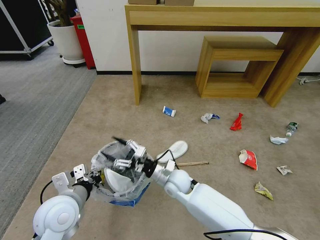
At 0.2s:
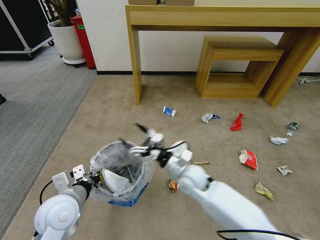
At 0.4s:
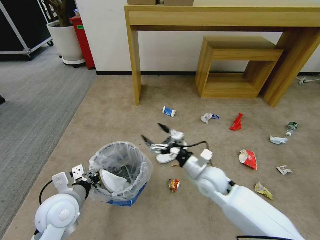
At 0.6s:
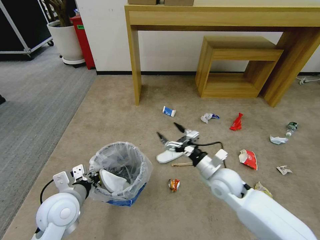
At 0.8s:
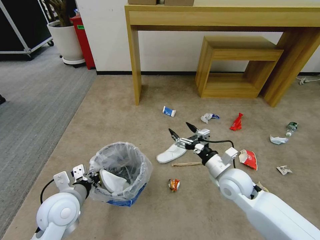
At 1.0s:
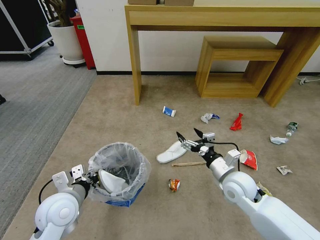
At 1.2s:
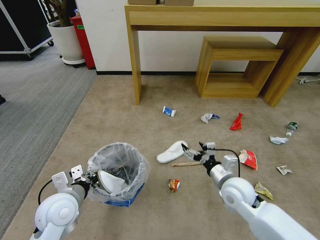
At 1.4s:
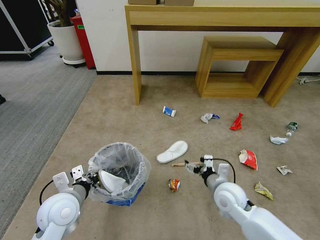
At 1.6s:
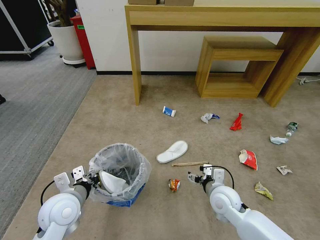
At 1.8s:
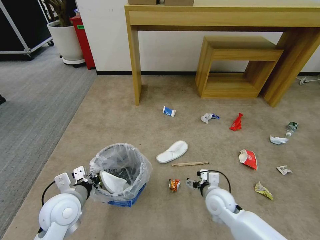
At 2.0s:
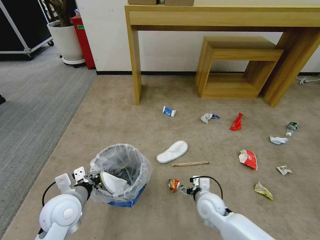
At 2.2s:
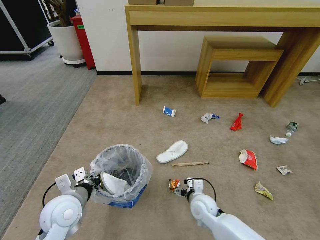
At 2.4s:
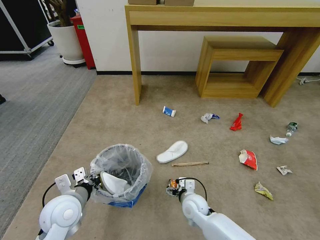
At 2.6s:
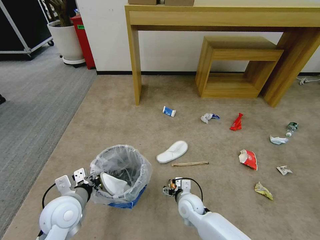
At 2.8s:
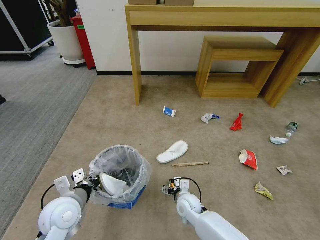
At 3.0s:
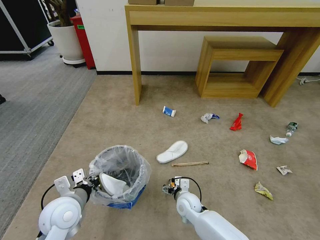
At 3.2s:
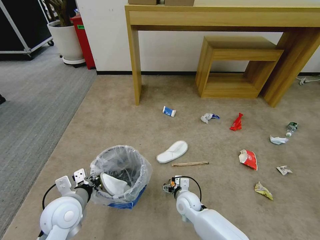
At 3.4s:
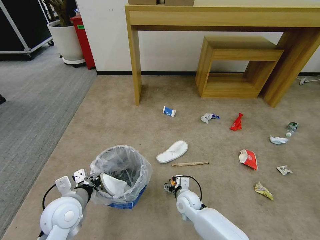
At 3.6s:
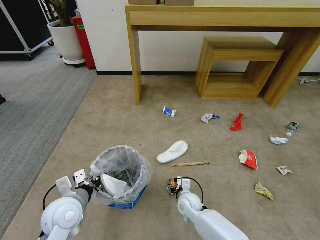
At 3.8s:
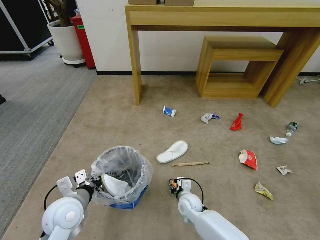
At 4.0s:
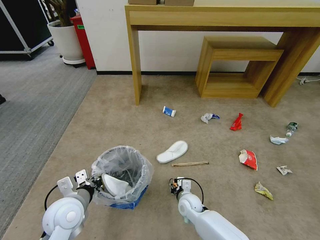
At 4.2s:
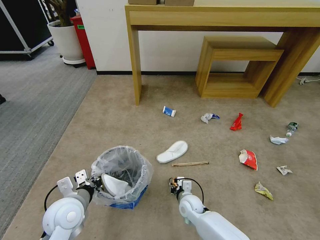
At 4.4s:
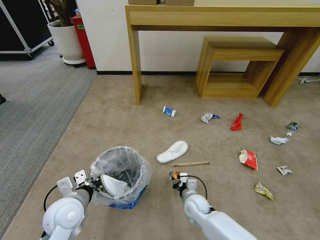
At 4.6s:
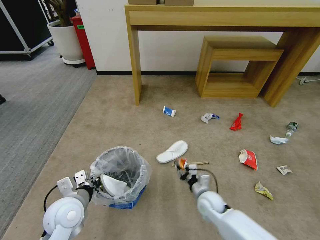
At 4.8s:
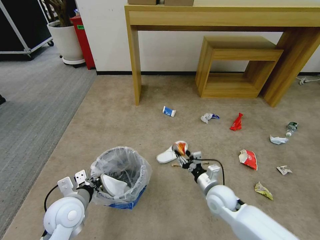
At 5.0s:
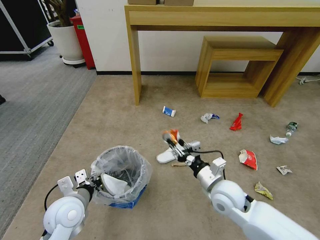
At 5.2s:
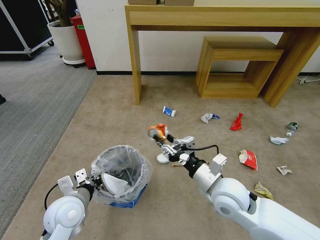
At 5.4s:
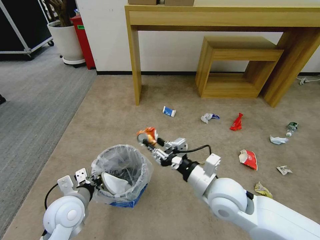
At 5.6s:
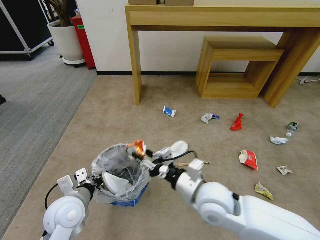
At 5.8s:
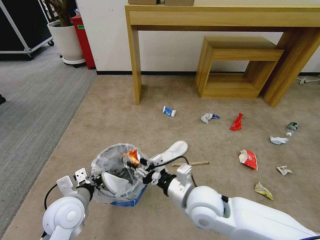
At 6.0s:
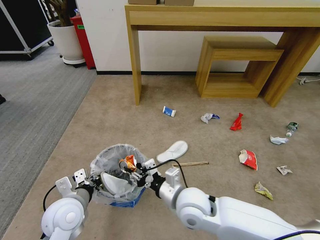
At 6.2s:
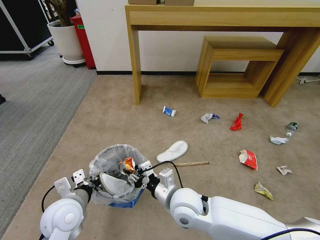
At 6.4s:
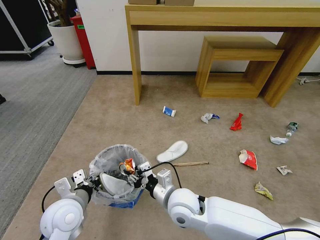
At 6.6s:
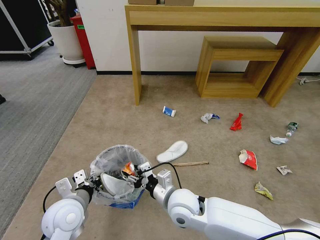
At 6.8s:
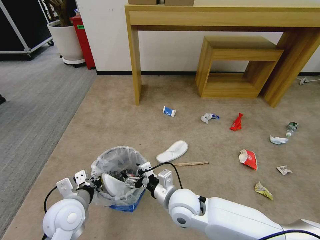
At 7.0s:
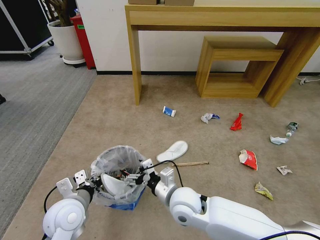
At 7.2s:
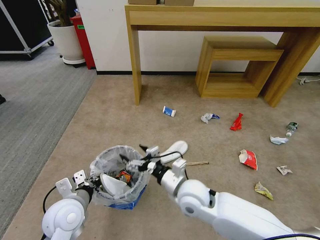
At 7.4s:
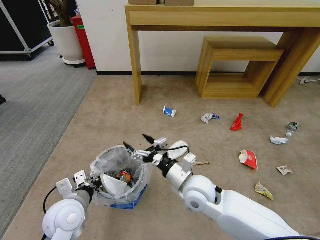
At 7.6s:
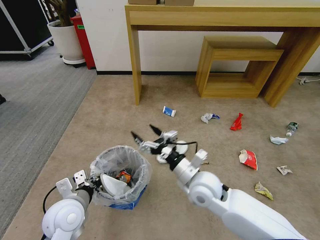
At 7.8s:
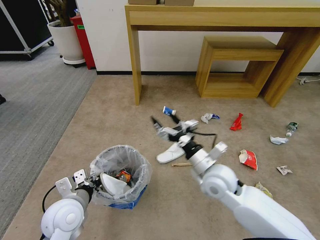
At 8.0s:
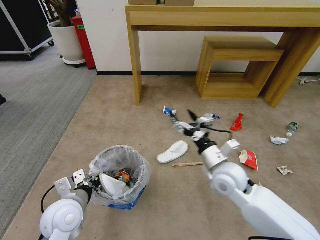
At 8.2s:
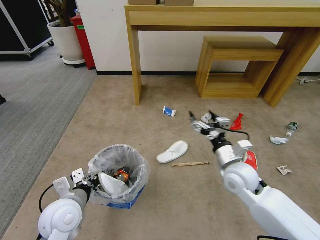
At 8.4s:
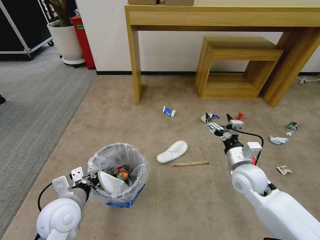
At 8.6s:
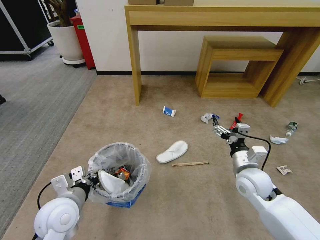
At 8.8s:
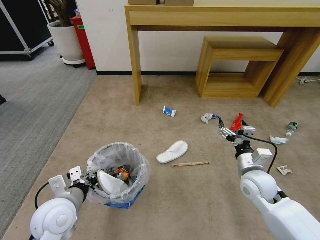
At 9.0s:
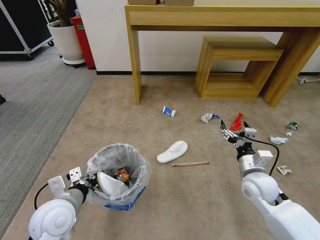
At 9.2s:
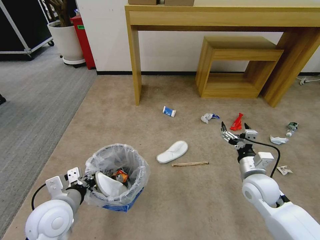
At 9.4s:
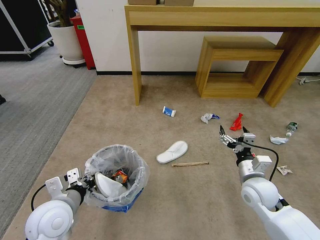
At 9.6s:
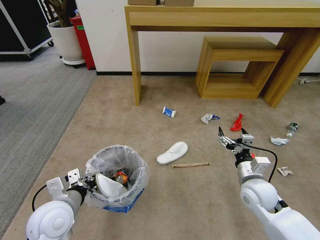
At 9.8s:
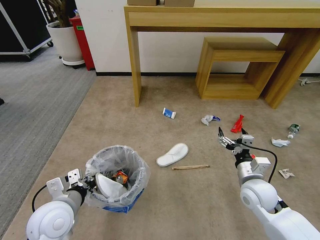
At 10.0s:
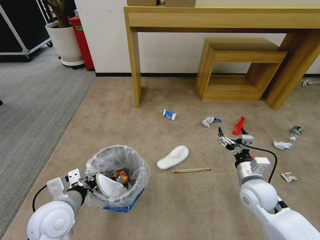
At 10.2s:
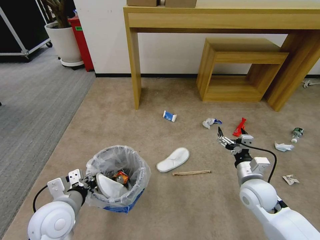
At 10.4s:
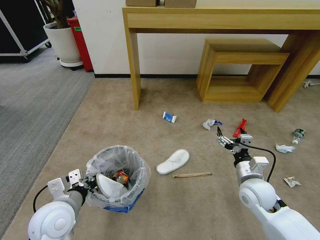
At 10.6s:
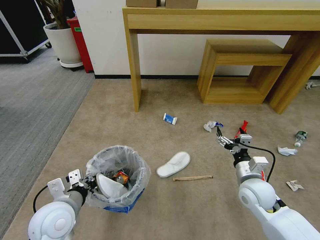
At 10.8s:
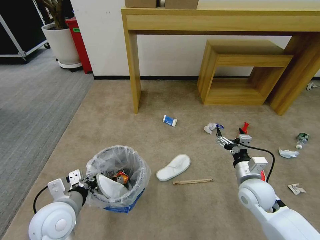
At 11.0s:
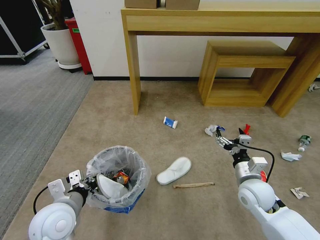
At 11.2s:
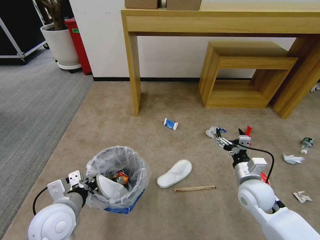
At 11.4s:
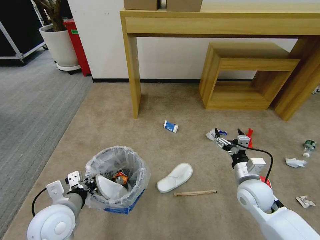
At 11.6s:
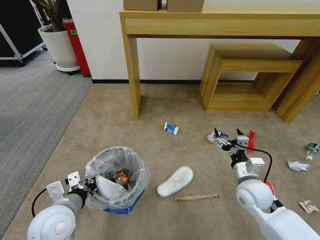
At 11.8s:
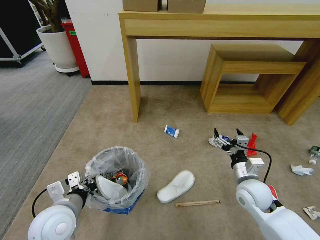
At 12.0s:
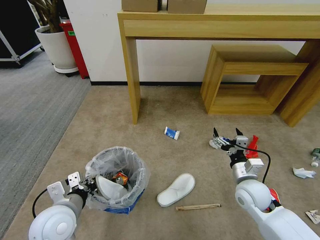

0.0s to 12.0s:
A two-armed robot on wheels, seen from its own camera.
Task of the whole recording: Pick up the trash bin and place the garbage on the floor into it.
0.0s to 1.6s: The right gripper travels to the right and backward by about 15 cm.
1.6s to 3.0s: The right gripper heads downward and to the left, covering some 15 cm.
3.0s to 4.4s: The right gripper closes.
4.4s to 6.0s: The right gripper moves upward, roughly 20 cm.
6.0s to 7.6s: The right gripper moves about 5 cm, and opens its fingers.
7.6s to 9.0s: The right gripper travels to the right by some 20 cm.
9.0s to 10.4s: The grippers move only a little.

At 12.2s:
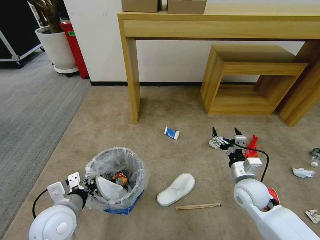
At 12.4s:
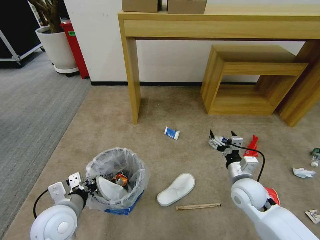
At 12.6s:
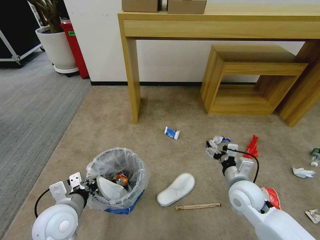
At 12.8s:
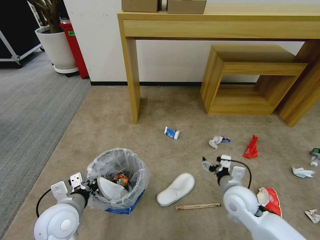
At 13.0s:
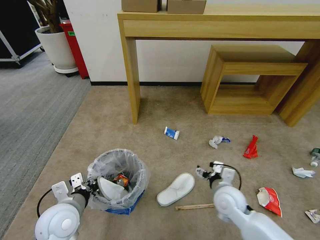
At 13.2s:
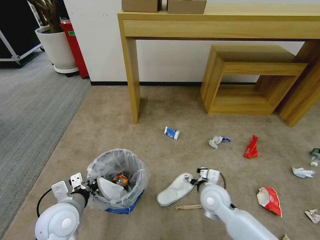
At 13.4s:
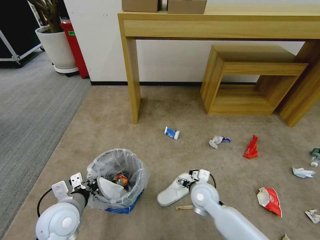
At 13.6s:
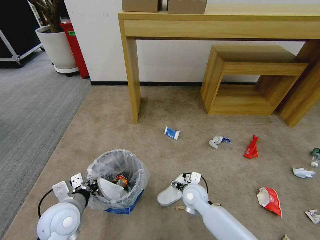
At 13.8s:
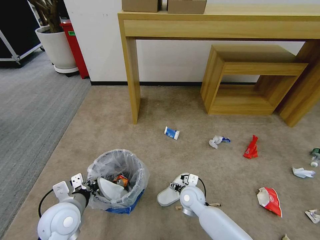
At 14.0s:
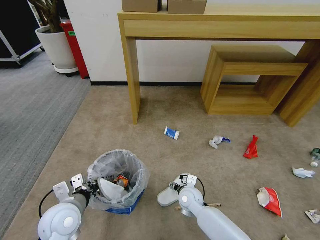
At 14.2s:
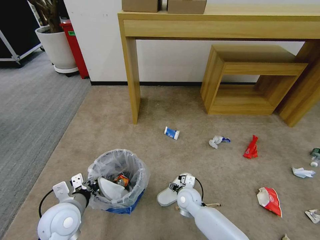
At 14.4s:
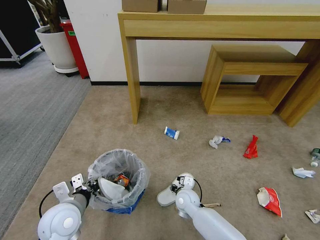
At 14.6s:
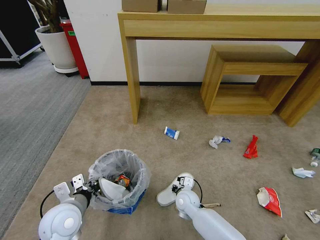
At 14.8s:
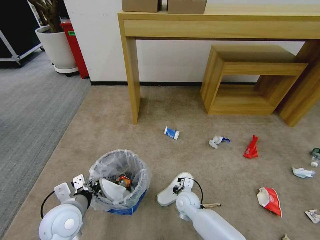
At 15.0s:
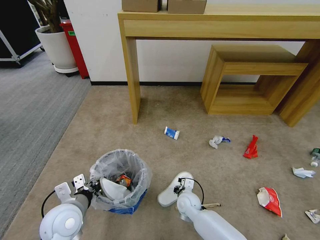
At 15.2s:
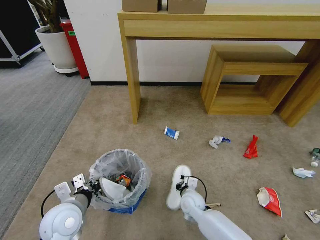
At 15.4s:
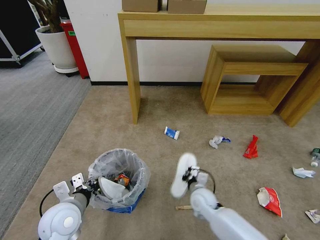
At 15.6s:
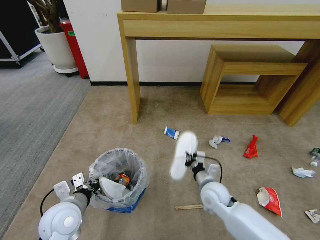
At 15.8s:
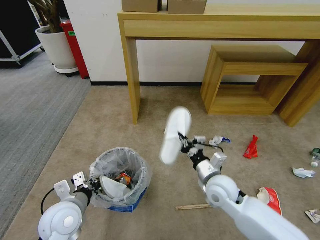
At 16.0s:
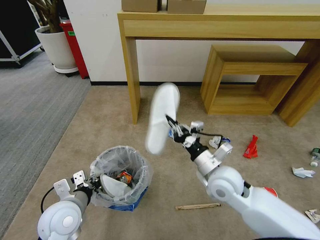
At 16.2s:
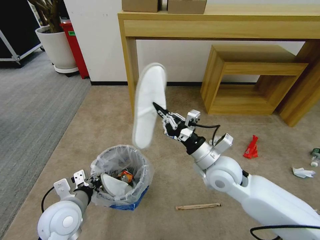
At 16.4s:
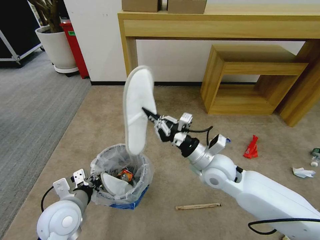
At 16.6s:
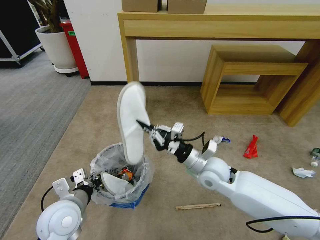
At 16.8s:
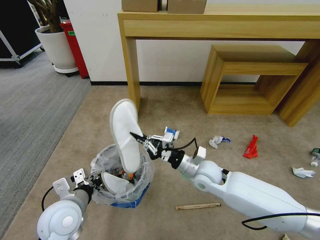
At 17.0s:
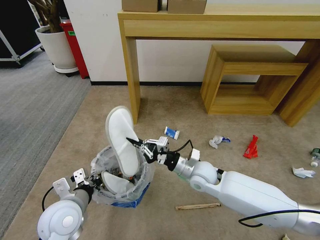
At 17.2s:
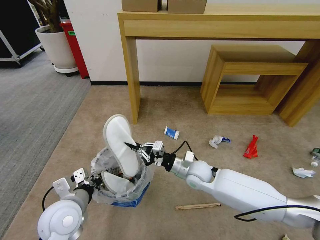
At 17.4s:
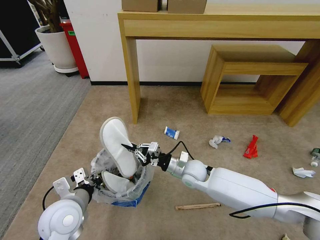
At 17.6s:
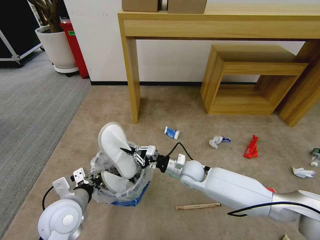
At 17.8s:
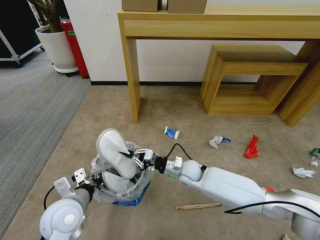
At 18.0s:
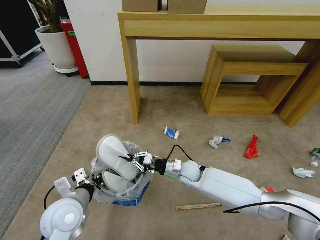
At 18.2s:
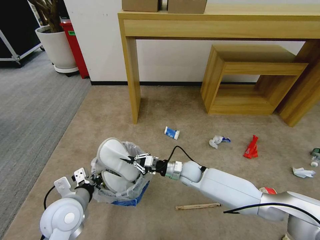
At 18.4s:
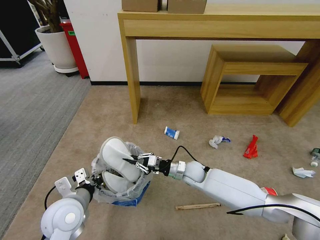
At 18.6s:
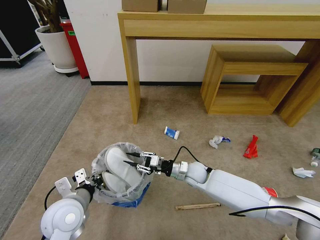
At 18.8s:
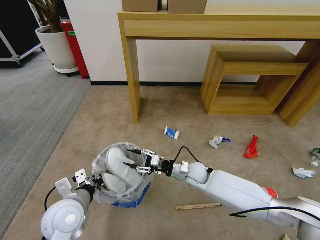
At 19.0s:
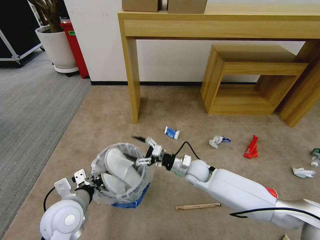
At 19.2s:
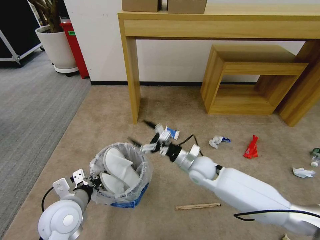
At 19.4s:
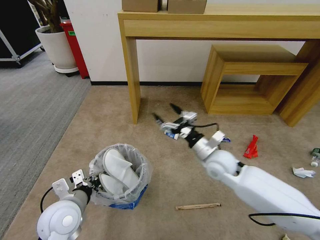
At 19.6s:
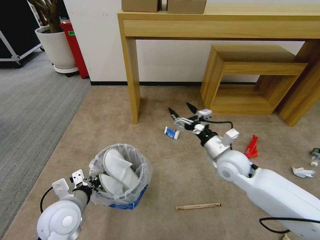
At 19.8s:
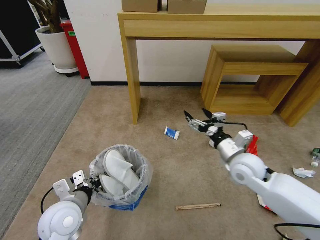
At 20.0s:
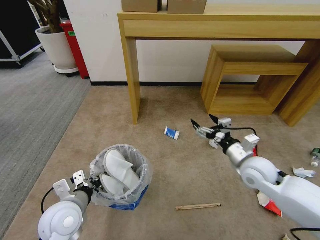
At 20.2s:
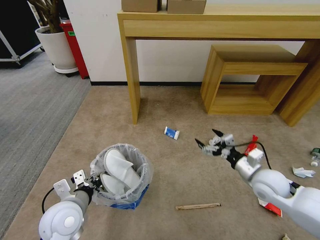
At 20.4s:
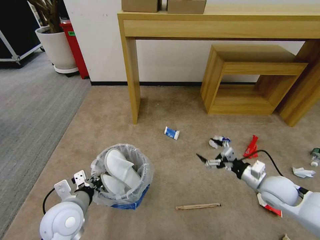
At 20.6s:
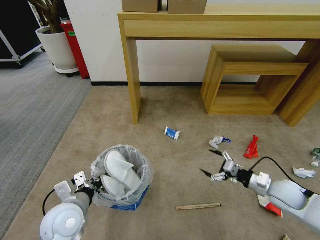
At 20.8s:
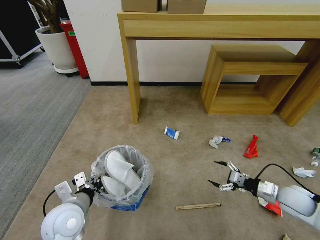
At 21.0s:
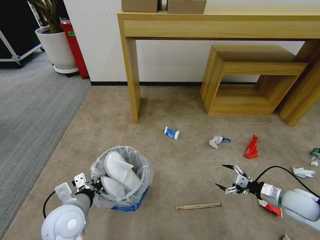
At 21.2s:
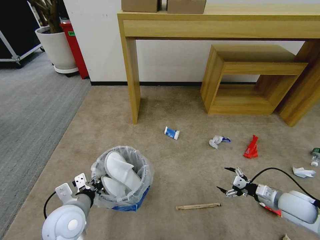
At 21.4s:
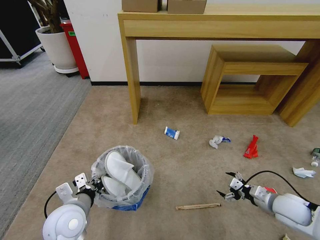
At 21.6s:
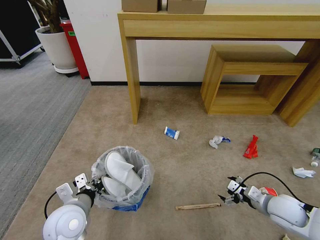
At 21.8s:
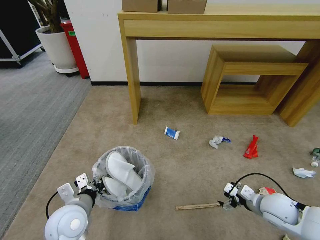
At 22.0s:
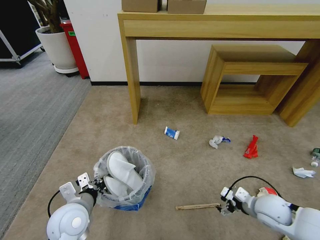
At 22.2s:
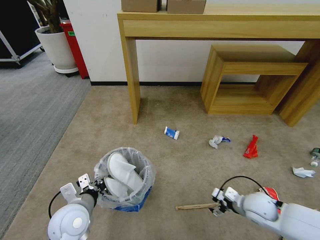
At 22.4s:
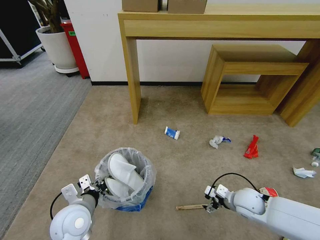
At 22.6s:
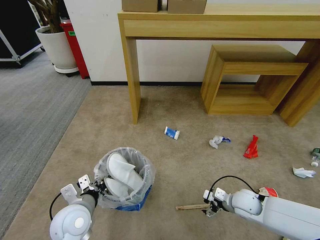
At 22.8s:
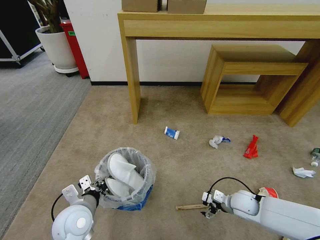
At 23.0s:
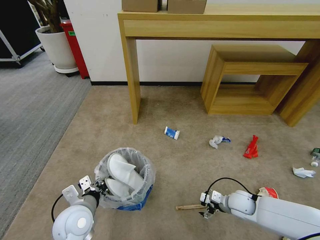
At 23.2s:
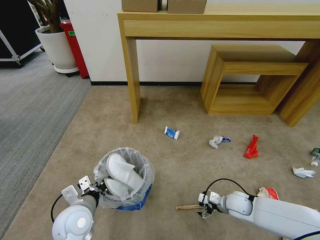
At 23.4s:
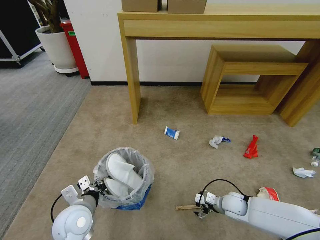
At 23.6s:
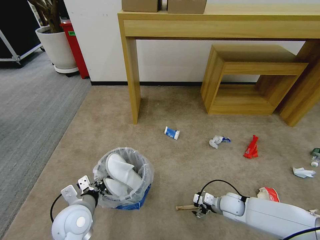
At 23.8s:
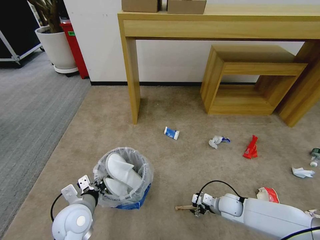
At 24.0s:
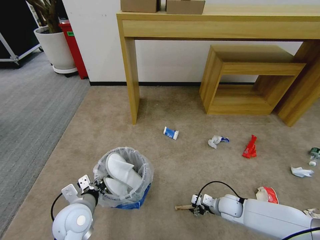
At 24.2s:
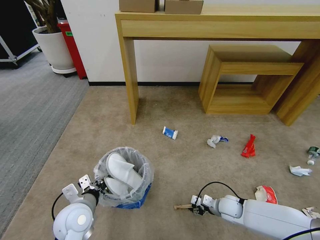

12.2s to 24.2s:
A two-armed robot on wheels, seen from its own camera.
Task of the whole recording: Pick up the trash bin and place the garbage on the floor into it.
12.2s to 13.8s: The right gripper goes about 20 cm to the left and downward.
13.8s to 15.2s: The right gripper closes up.
15.2s to 16.6s: The right gripper goes approximately 20 cm upward.
16.6s to 18.2s: The right gripper travels downward and forward by approximately 15 cm.
18.2s to 19.8s: The right gripper shifts approximately 20 cm upward, to the right and backward, and opens up.
19.8s to 21.2s: The right gripper is displaced to the right, downward and backward by roughly 20 cm.
21.2s to 22.6s: The right gripper goes roughly 15 cm to the left and downward.
22.6s to 24.2s: The right gripper travels downward by roughly 10 cm, and closes its fingers.
